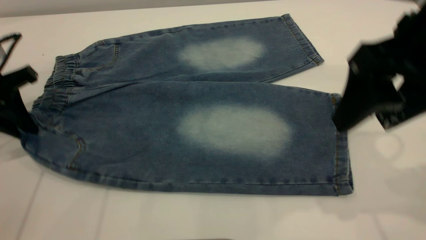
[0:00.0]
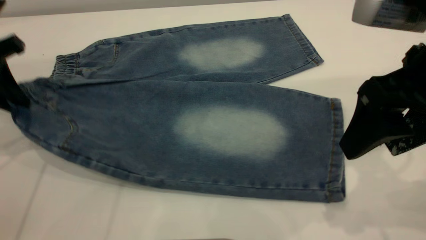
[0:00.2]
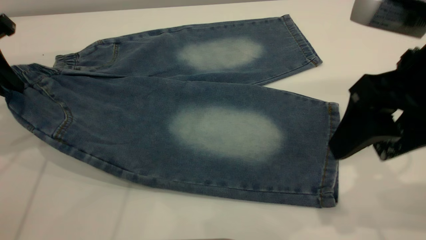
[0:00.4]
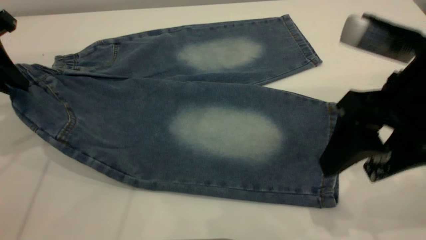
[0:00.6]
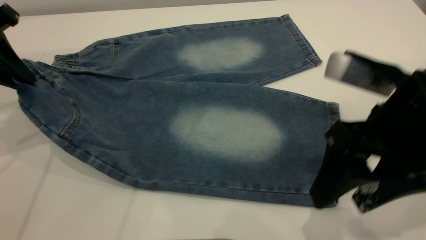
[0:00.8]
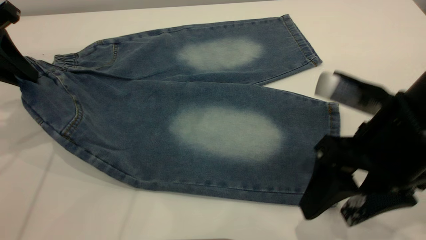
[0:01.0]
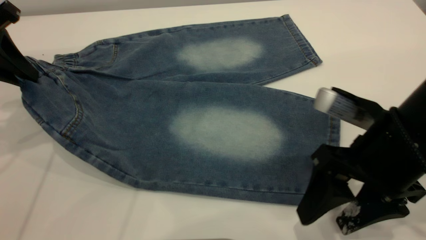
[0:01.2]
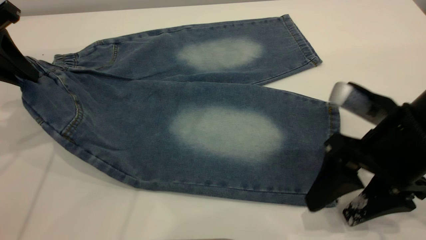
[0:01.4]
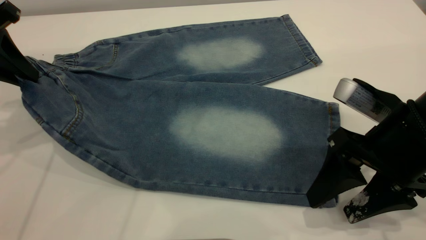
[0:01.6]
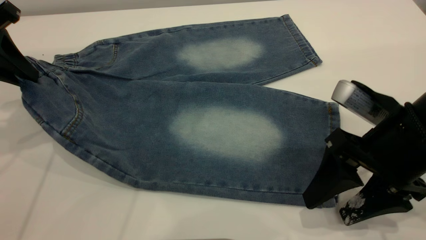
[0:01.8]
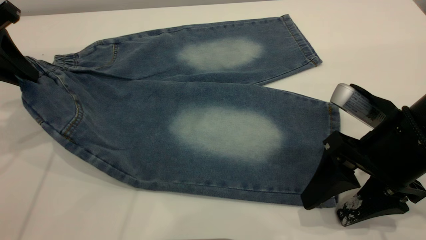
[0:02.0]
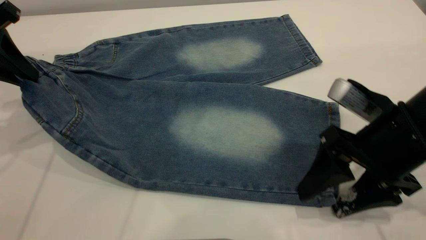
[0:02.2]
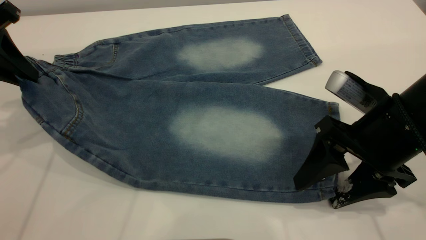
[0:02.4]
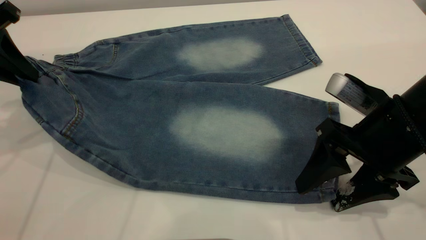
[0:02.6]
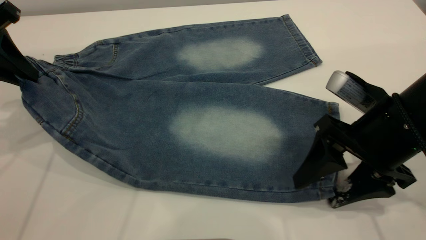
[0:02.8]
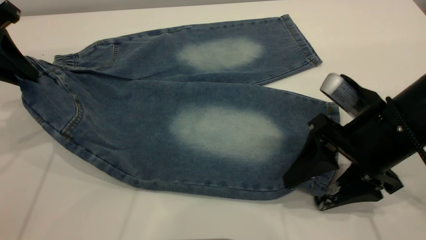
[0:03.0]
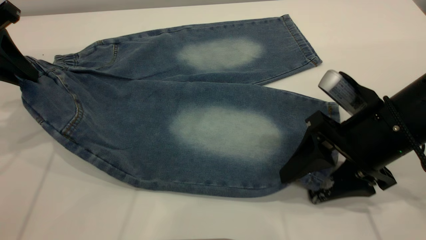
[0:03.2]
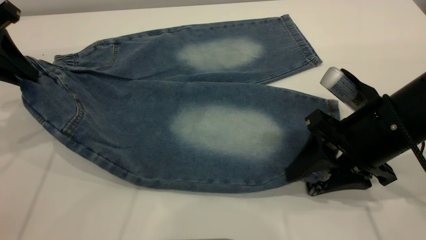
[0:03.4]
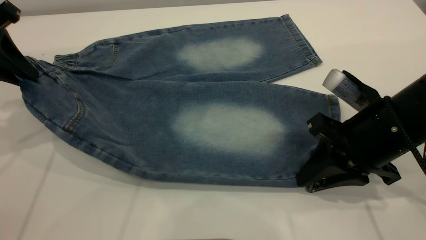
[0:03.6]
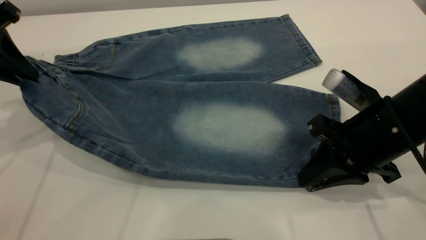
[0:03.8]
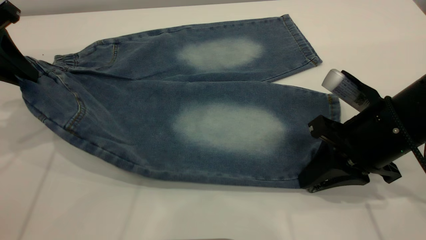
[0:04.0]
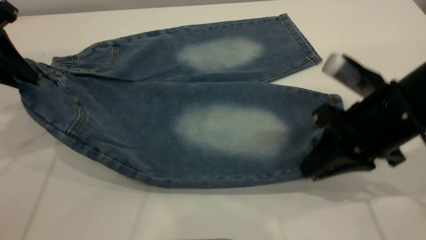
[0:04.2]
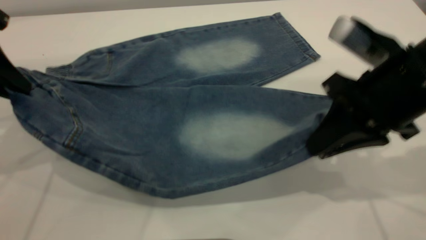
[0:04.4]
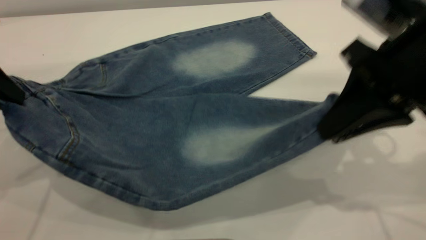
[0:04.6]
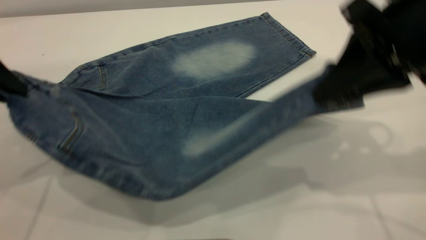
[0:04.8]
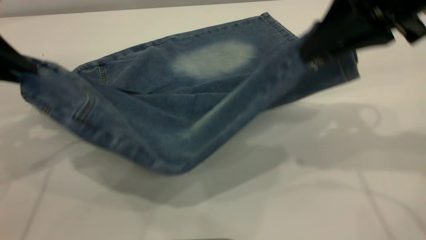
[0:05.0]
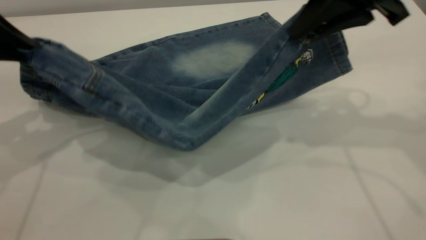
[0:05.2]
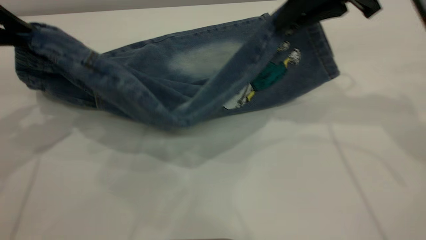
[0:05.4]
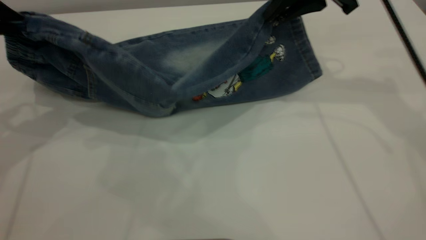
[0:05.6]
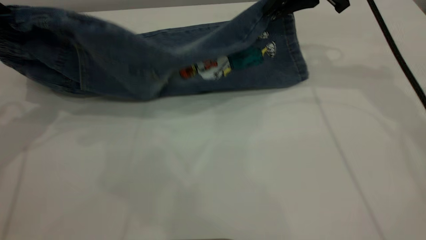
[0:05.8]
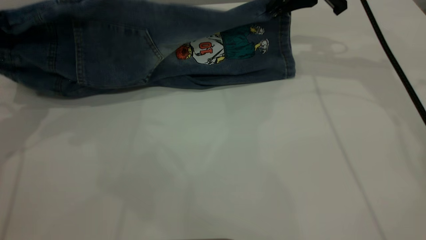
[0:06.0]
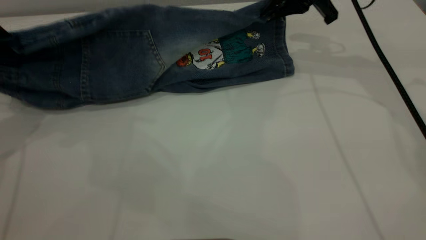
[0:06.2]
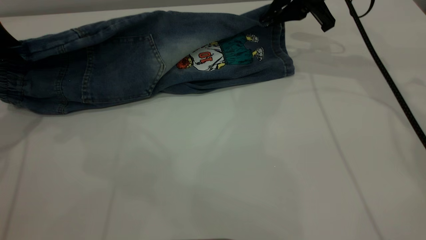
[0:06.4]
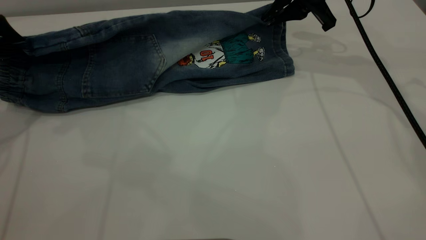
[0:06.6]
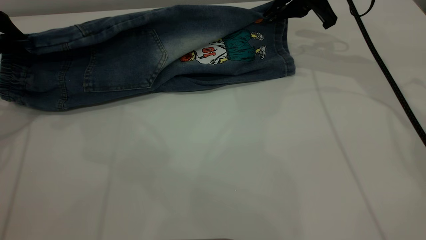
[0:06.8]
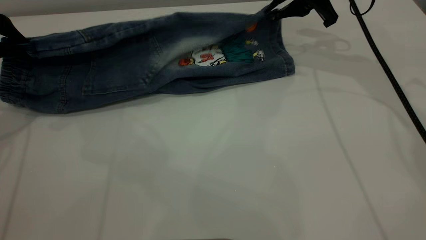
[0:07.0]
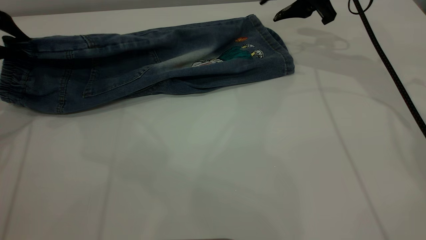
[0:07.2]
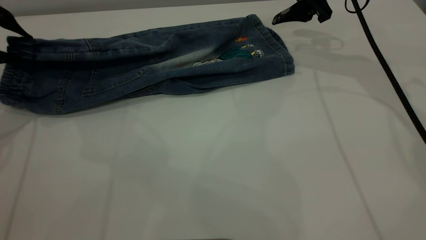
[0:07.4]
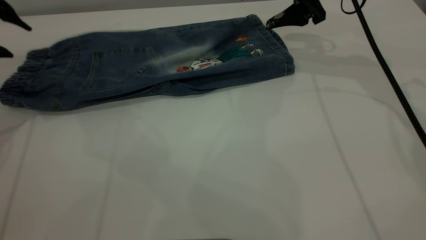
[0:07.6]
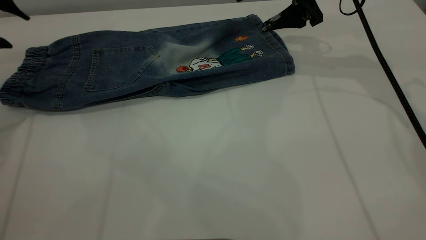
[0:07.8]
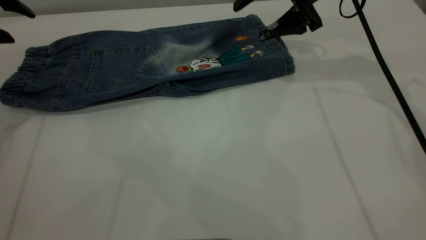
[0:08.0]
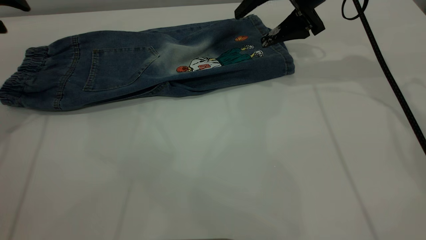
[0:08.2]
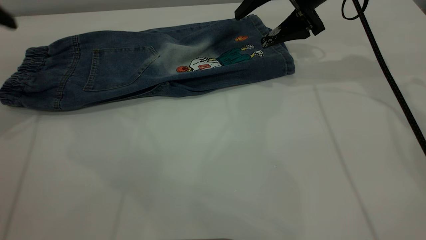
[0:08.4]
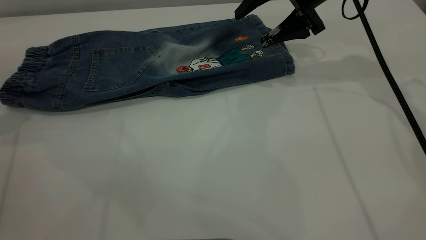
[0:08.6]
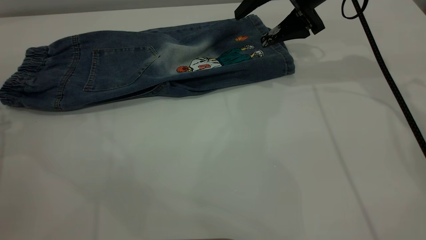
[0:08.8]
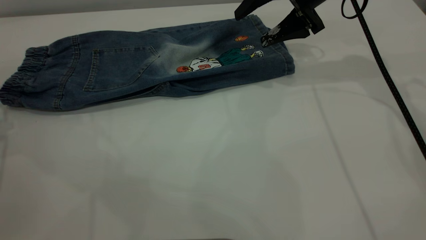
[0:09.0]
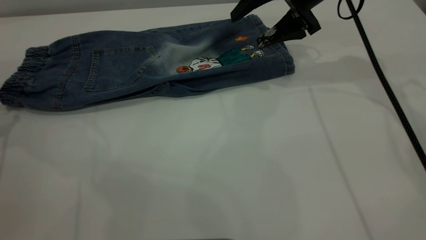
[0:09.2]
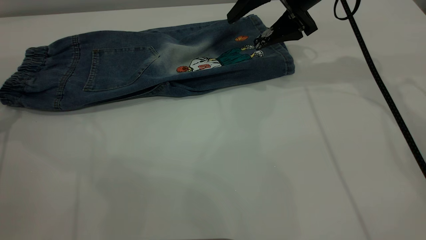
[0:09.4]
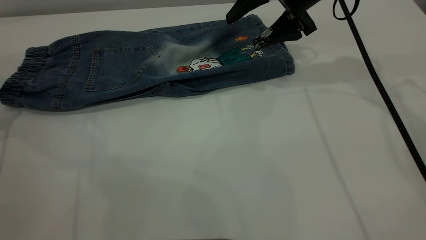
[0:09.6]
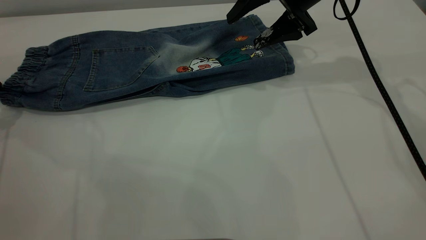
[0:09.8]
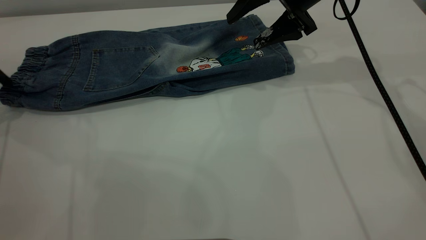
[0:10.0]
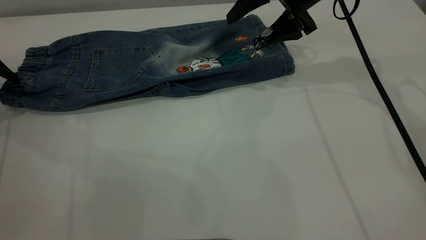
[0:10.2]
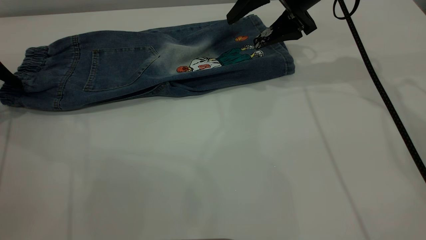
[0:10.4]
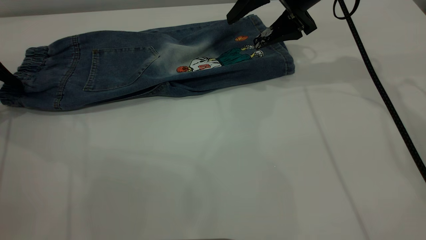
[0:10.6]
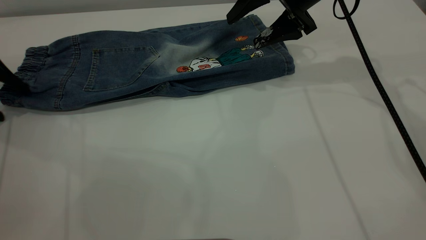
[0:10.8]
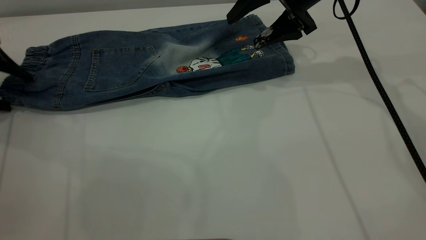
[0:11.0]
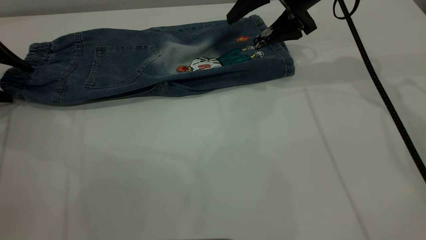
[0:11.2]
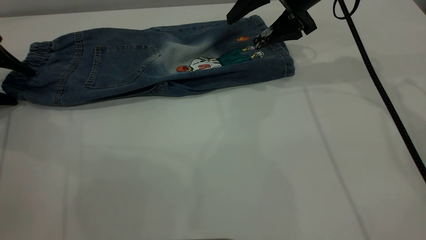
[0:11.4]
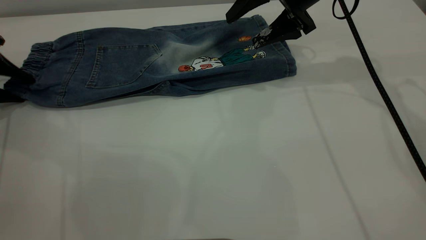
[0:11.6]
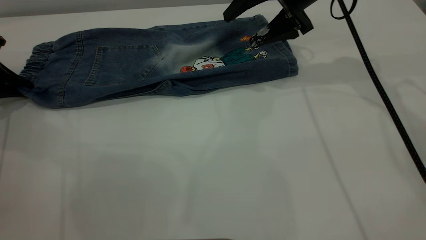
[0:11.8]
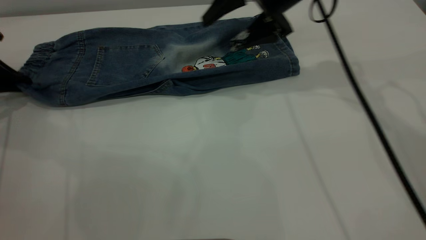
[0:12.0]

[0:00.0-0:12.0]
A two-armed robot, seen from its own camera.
Step, 0:00.0 to 0:07.6: Fold the bottom of the pants upward.
0:00.0 to 0:01.6: The right gripper goes some 10 cm downward. Meanwhile the left gripper goes about 5 cm upward.
0:01.6 to 0:03.0: There are only small adjustments of the grippers.
0:03.0 to 0:04.4: The right gripper goes roughly 5 cm upward, and closes its fingers.
0:04.4 to 0:06.0: The right gripper is displaced forward by some 20 cm.
0:06.0 to 0:07.6: The left gripper travels forward by approximately 5 cm, and opens its fingers; the right gripper opens its fingers.
0:07.6 to 0:09.0: The left gripper moves to the left, roughly 5 cm.
0:09.0 to 0:10.4: The left gripper moves roughly 5 cm.
0:10.4 to 0:12.0: The right gripper shifts by roughly 5 cm. The left gripper closes.

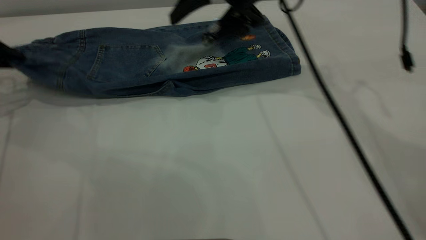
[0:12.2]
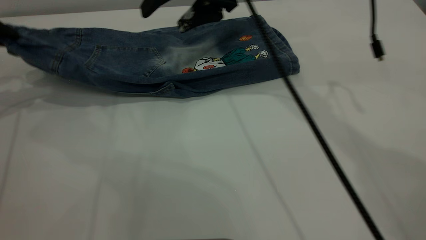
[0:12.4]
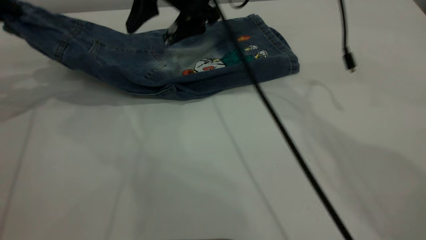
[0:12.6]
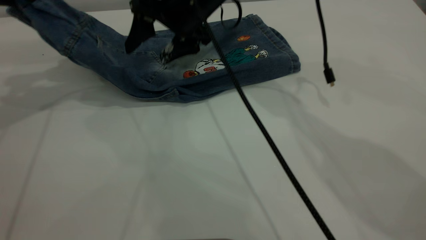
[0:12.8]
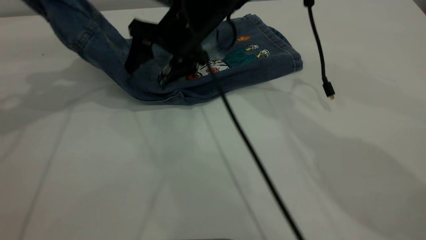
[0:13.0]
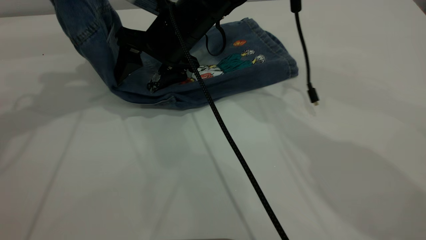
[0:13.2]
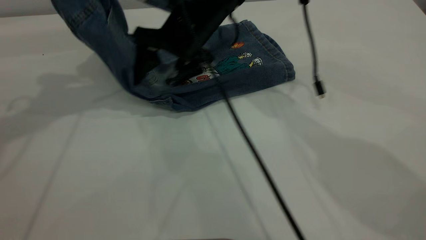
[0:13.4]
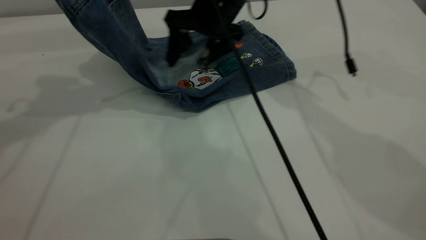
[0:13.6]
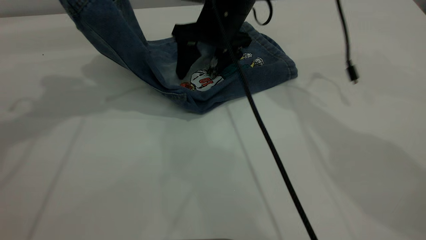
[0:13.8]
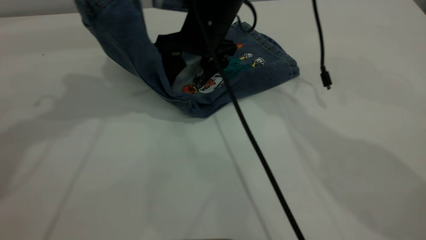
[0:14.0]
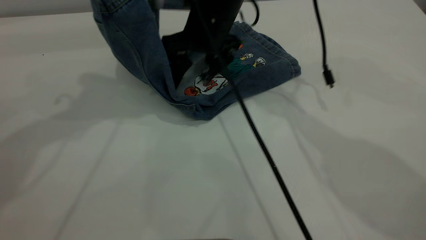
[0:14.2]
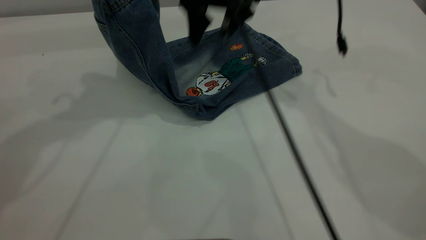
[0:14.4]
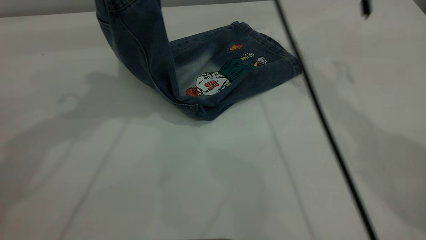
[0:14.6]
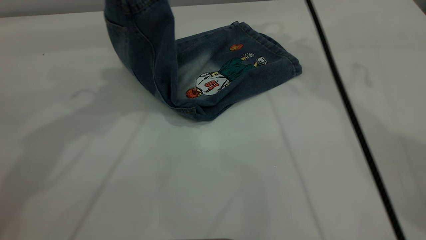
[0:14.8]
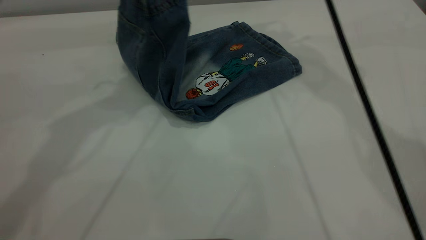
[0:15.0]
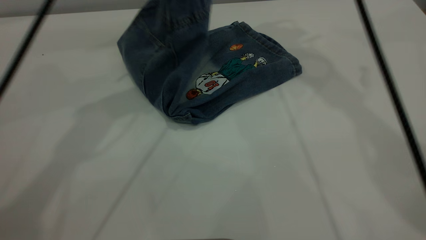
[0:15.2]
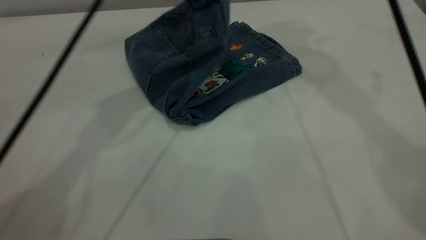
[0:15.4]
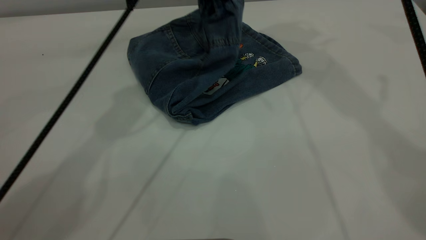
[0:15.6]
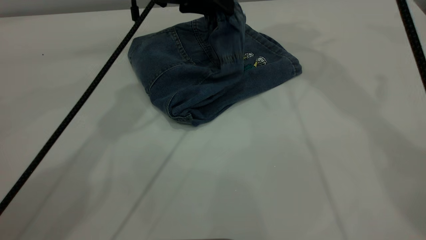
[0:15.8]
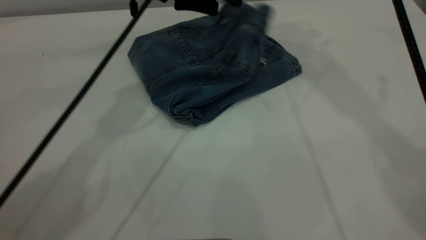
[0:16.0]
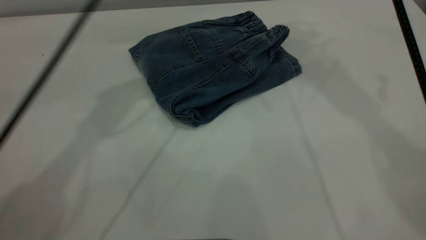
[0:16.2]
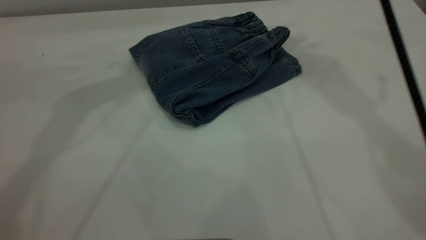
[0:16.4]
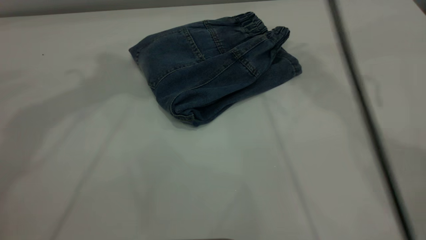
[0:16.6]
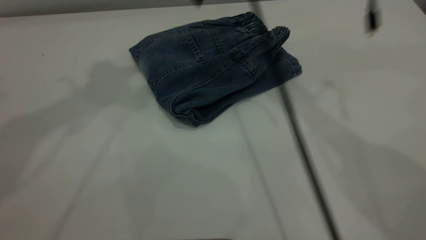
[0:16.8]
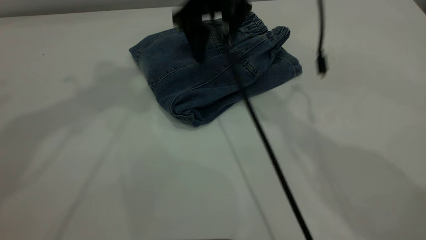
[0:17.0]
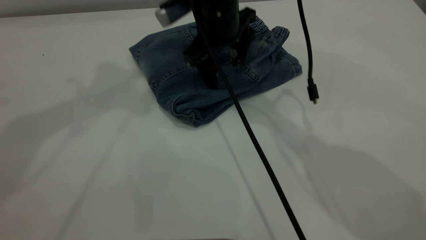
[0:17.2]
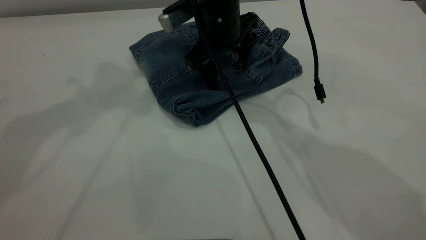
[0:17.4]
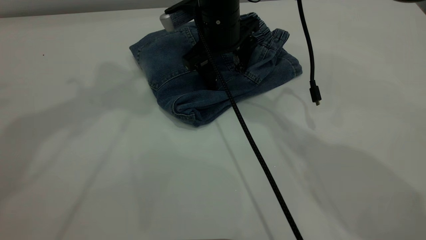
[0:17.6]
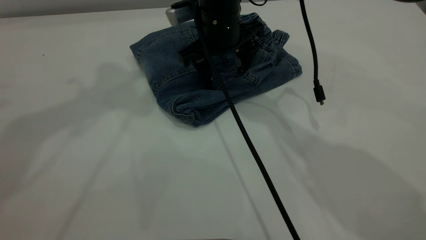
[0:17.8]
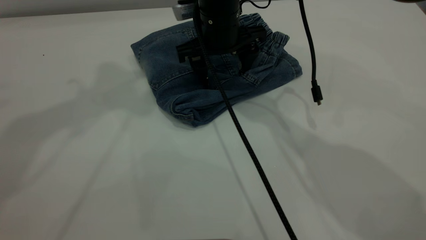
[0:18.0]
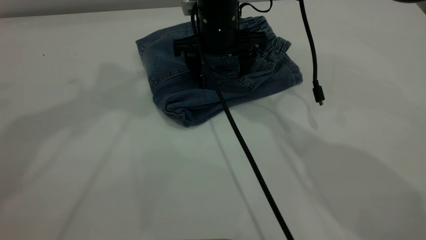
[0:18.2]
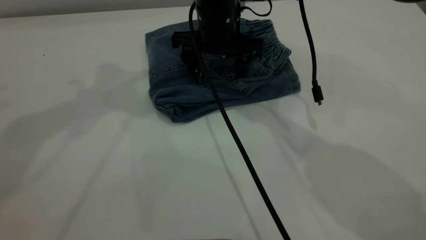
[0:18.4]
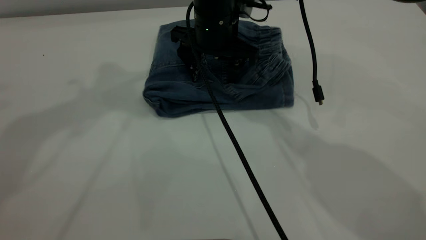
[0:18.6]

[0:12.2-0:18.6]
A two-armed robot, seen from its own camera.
Step, 0:12.2 to 0:16.0: Fold the pants from left to right.
0:12.2 to 0:13.8: The left gripper heads upward and to the right, covering approximately 20 cm; the right gripper travels downward by some 5 cm.
0:13.8 to 0:15.4: The right gripper goes roughly 30 cm upward. The left gripper moves to the right and downward, some 20 cm.
0:15.4 to 0:17.0: The left gripper moves upward and to the left, about 25 cm, and opens up, while the right gripper shifts some 25 cm downward and to the left.
